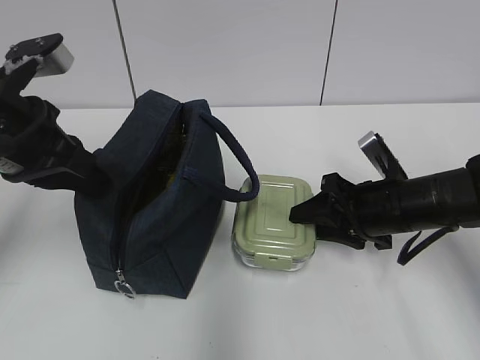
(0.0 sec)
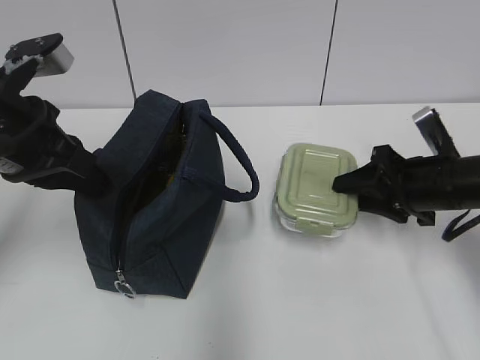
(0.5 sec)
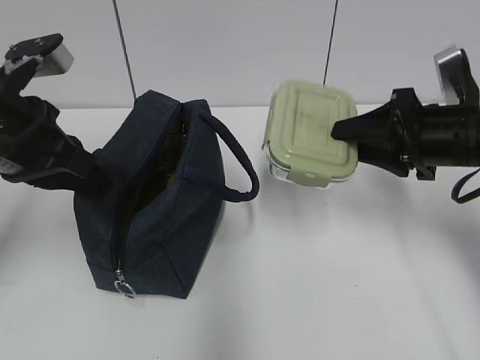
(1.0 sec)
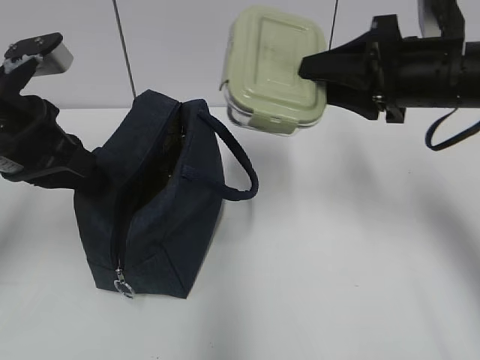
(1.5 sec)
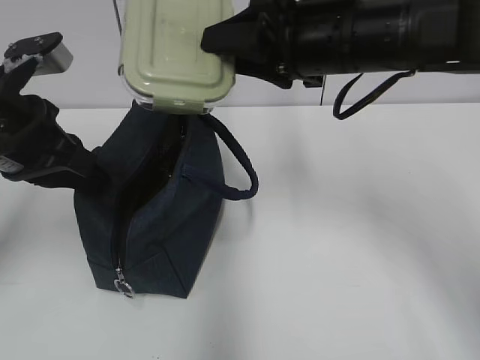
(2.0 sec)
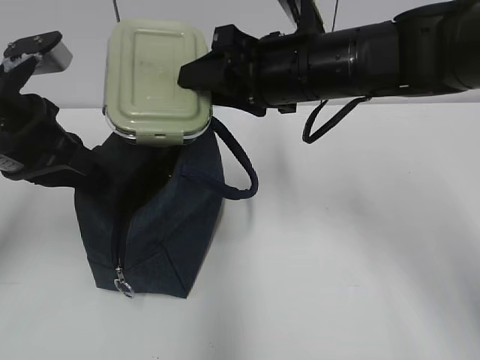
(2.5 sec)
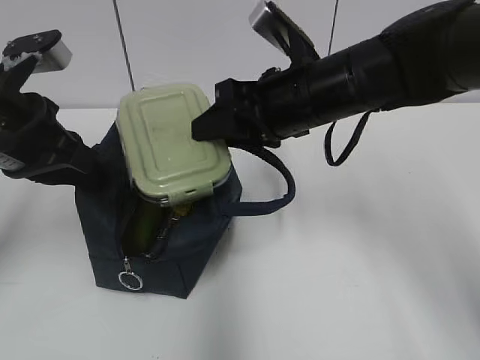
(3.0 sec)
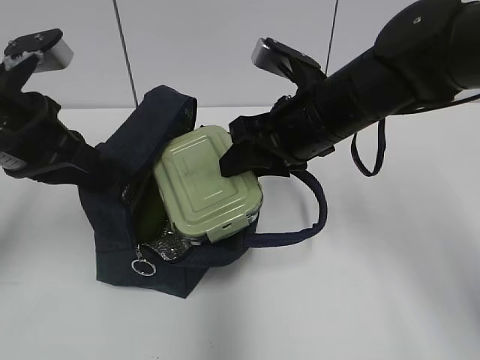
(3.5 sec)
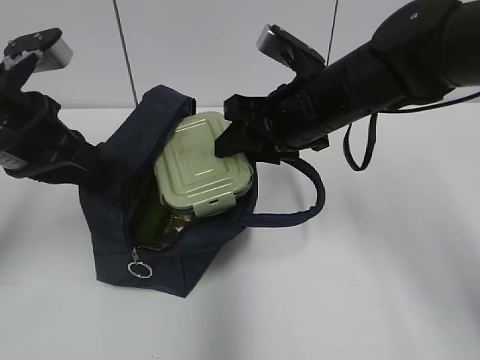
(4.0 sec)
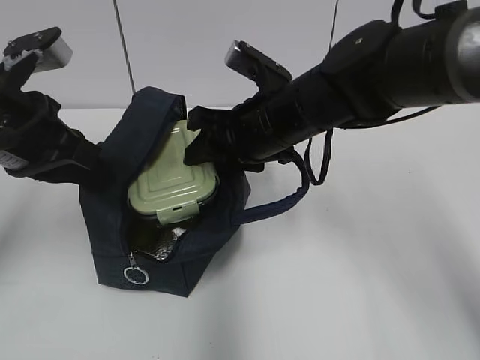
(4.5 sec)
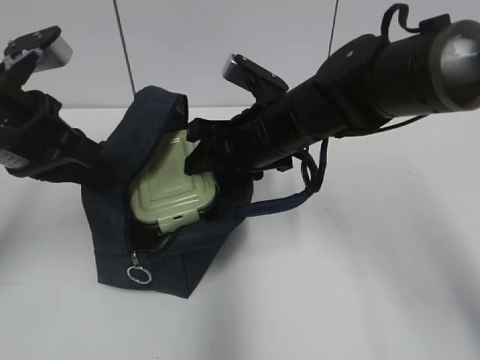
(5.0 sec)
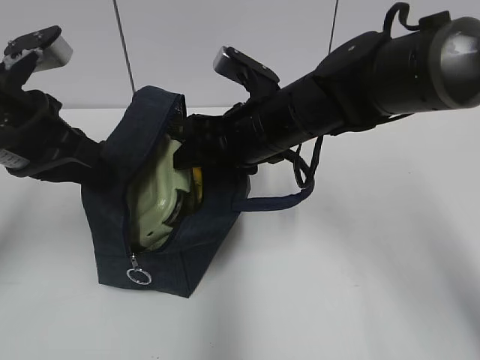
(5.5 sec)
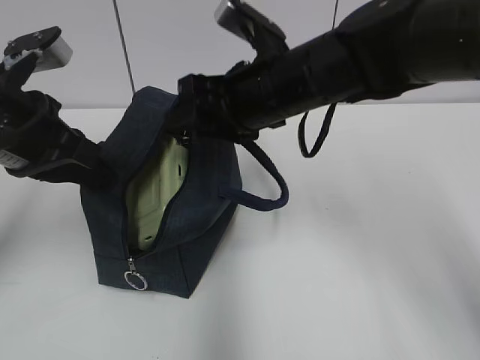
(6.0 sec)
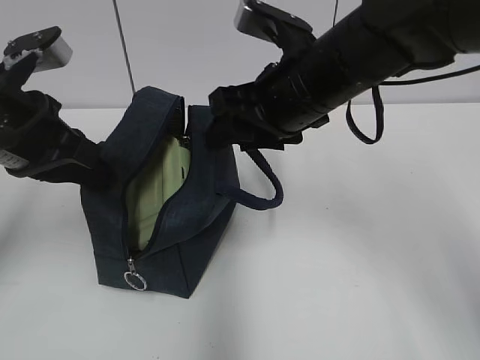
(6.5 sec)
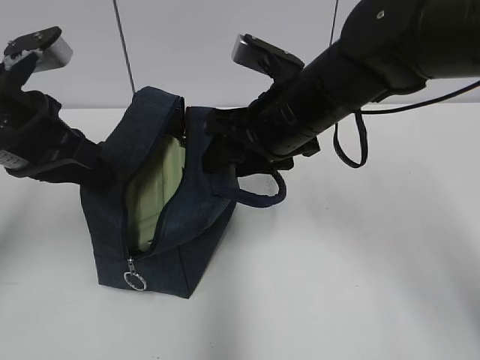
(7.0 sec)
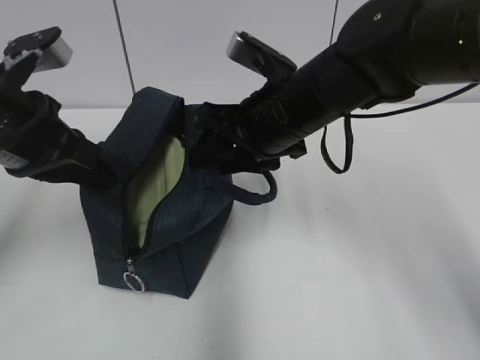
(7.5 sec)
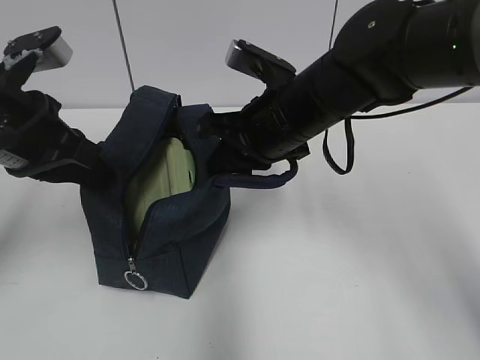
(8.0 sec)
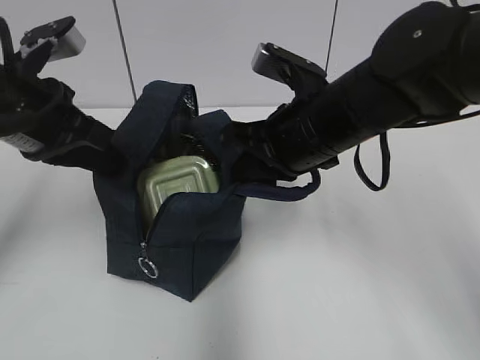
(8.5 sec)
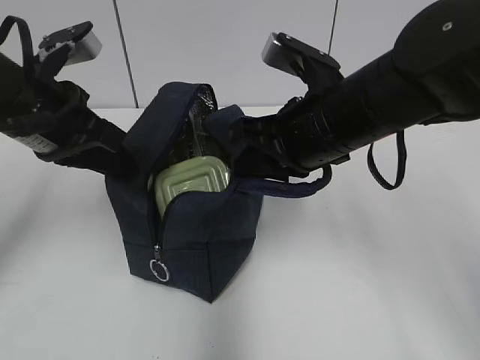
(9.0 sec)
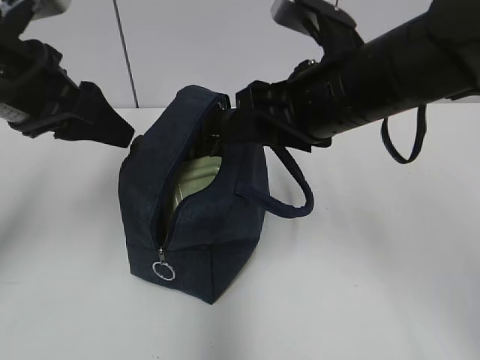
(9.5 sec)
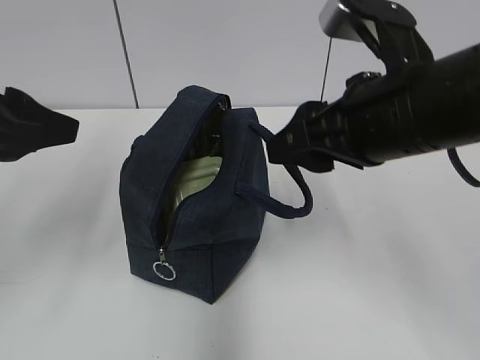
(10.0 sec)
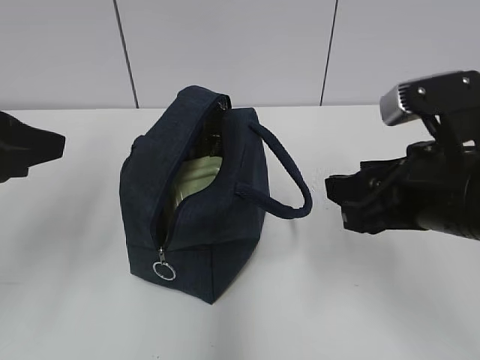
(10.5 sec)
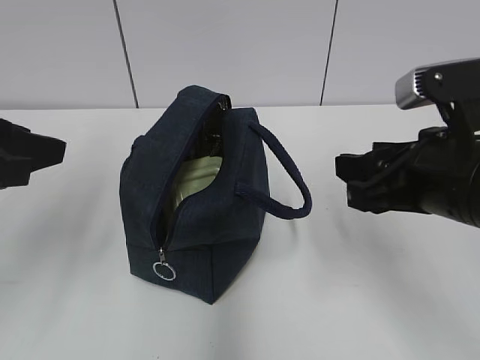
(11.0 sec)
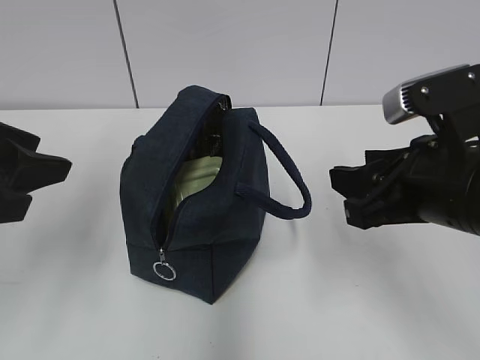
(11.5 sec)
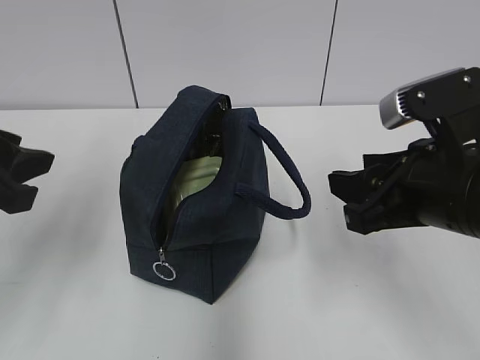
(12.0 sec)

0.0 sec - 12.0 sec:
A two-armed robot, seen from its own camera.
Step, 6.0 sec - 7.5 sec: Grab the lunch bag with your right hand.
Step, 8.0 sec - 9.0 sec: Move the lunch bag to the right.
0.0 sec - 2.0 sec: The right gripper goes roughly 20 cm upward and to the left.
2.0 sec - 4.0 sec: The right gripper heads downward, covering approximately 5 cm.
4.0 sec - 6.0 sec: The grippers make only small movements.
6.0 sec - 8.0 sec: The right gripper closes its fingers.
8.0 sec - 10.0 sec: The right gripper goes about 15 cm backward, to the right and upward, and opens its fingers, while the left gripper is displaced backward by approximately 5 cm, and opens up.
10.0 sec - 12.0 sec: The right gripper moves about 5 cm.

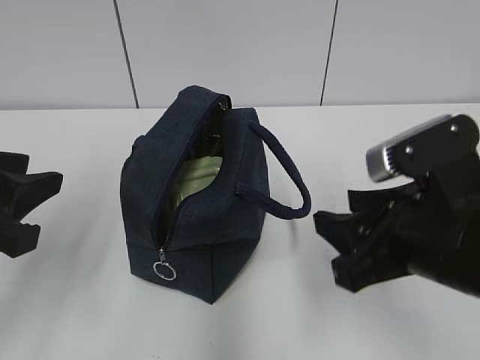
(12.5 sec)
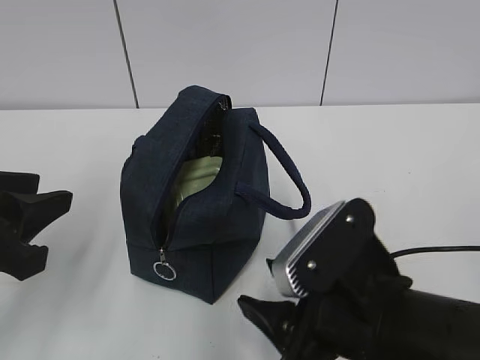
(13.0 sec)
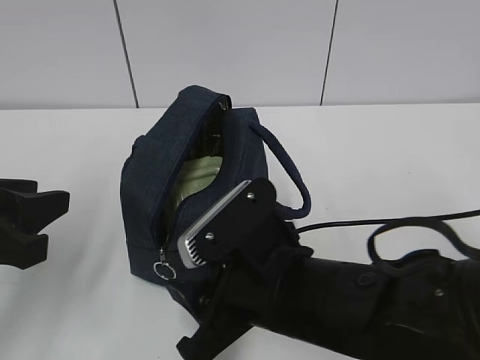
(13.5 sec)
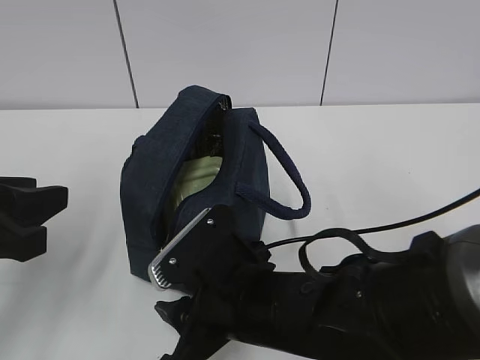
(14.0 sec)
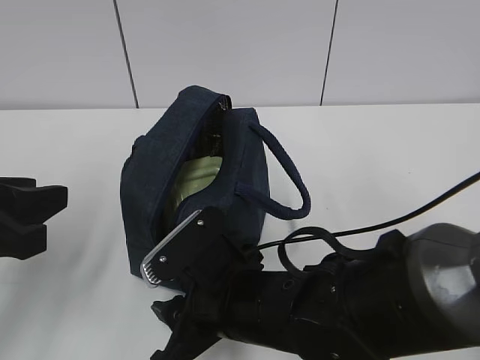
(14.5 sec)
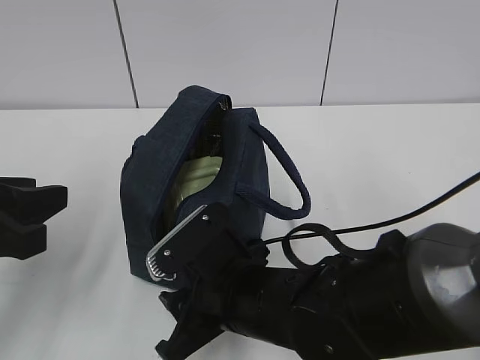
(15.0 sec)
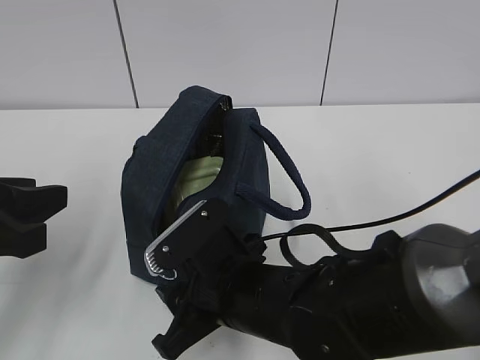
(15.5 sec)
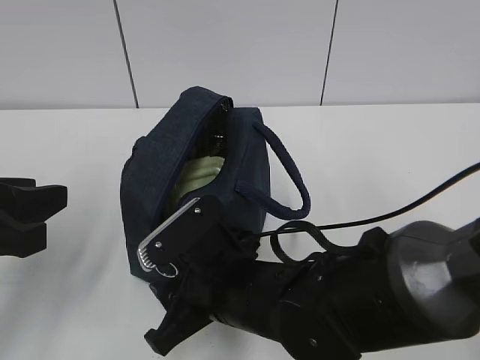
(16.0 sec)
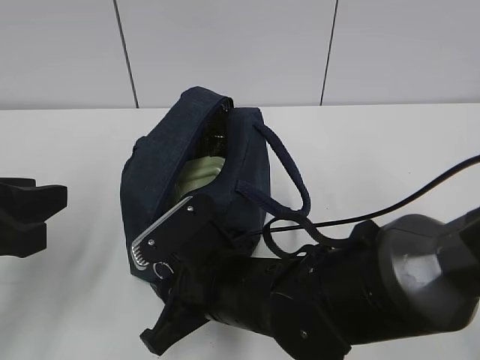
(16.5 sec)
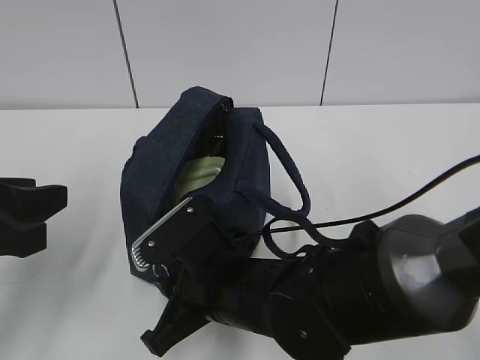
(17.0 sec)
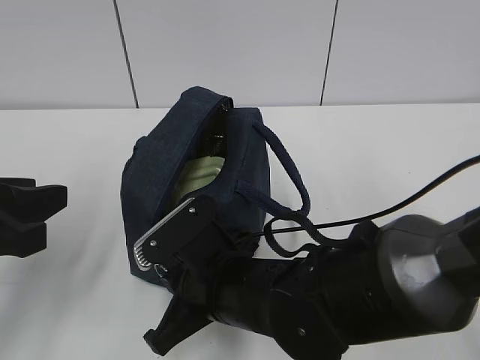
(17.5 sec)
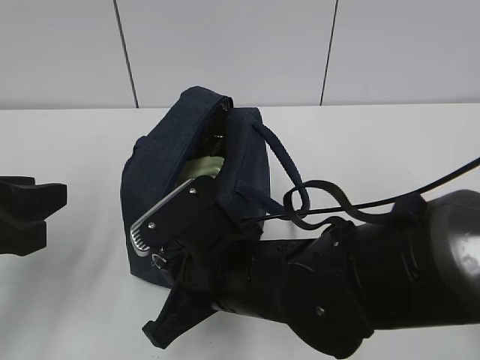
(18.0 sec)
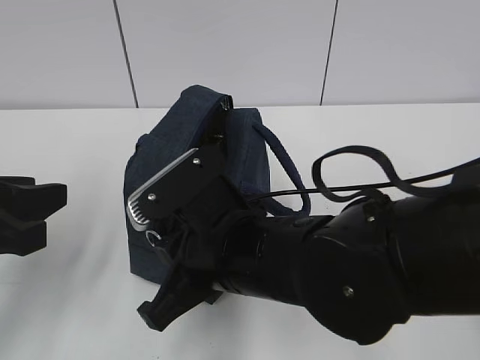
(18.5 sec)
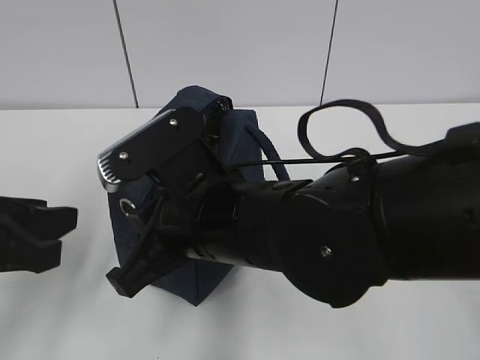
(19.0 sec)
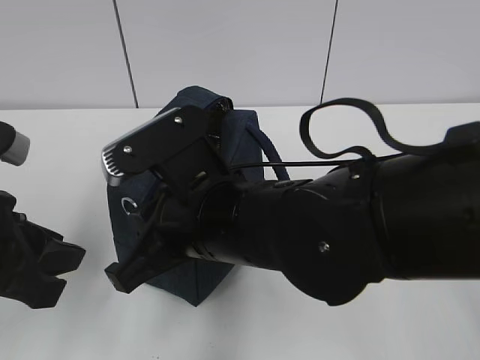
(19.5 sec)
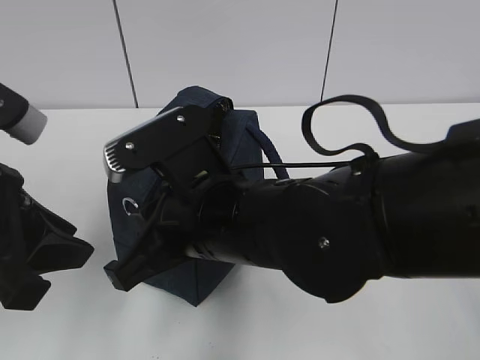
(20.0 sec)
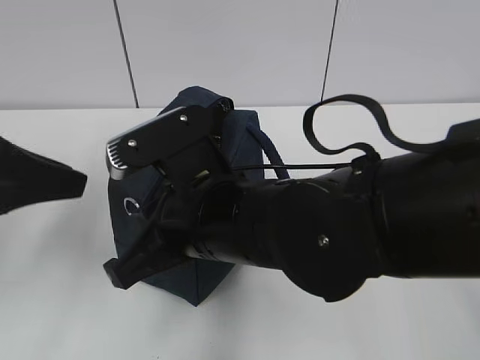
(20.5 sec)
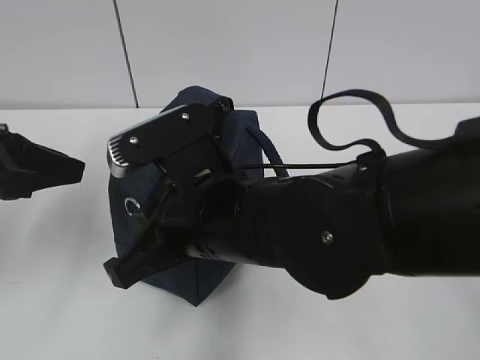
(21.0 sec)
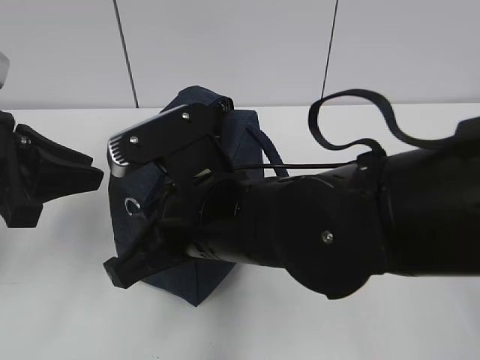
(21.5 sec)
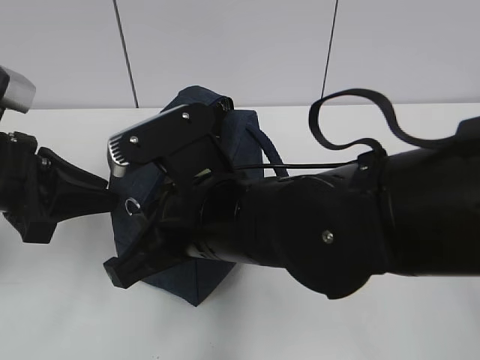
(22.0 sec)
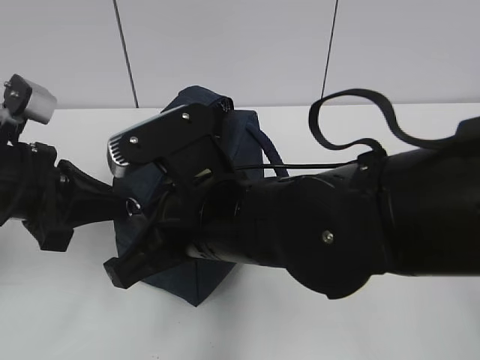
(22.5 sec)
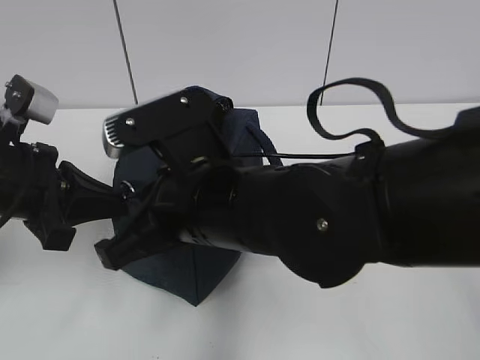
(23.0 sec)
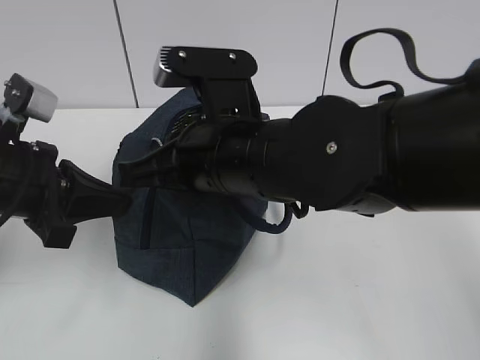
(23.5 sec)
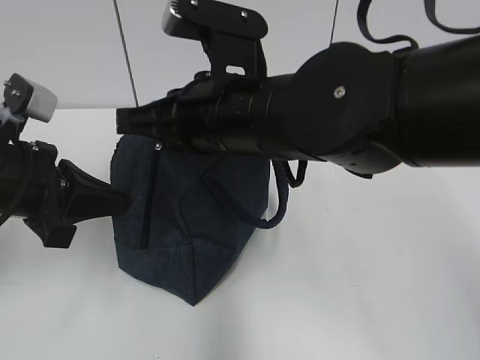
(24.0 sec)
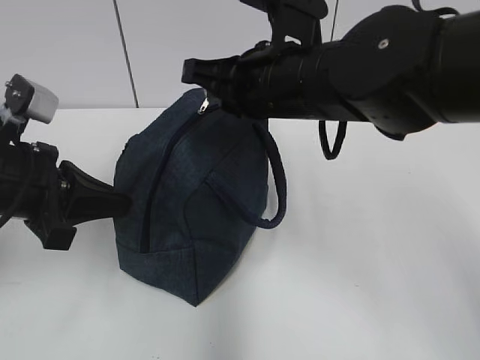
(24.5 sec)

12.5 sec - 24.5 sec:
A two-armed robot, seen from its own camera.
12.5 sec - 14.5 sec: The right gripper heads to the left and downward, covering about 15 cm.
14.5 sec - 16.5 sec: The grippers stay close to where they were, moving slightly.
16.5 sec - 18.5 sec: The right gripper moves upward, approximately 5 cm, and closes up.
18.5 sec - 20.5 sec: The left gripper changes place by approximately 5 cm.
20.5 sec - 22.5 sec: The left gripper goes some 5 cm downward, and closes up.
22.5 sec - 24.5 sec: The right gripper heads forward, to the right and upward, covering roughly 15 cm.

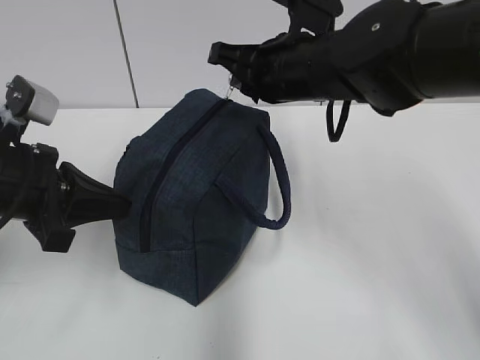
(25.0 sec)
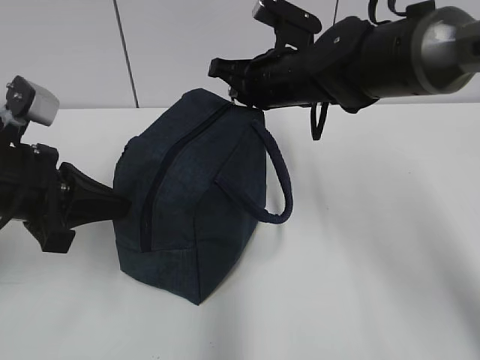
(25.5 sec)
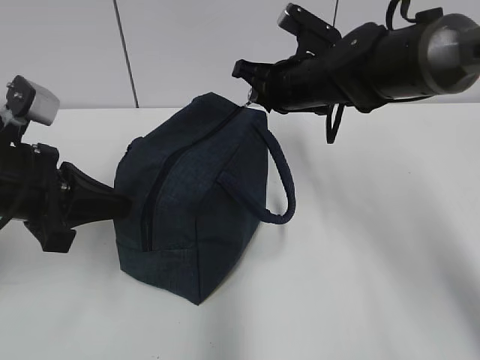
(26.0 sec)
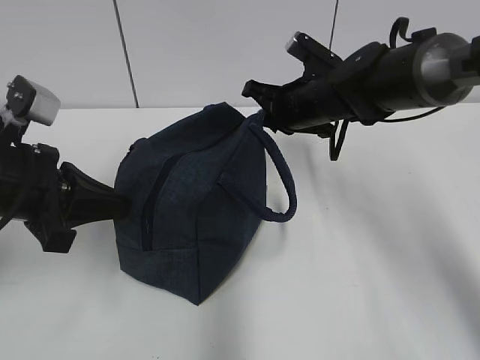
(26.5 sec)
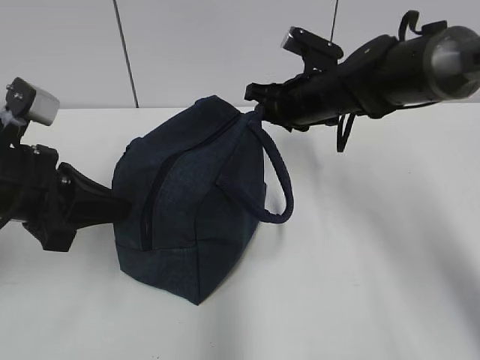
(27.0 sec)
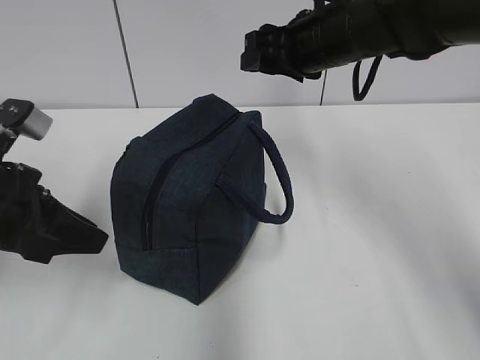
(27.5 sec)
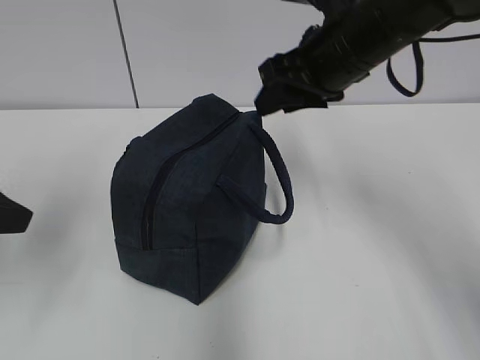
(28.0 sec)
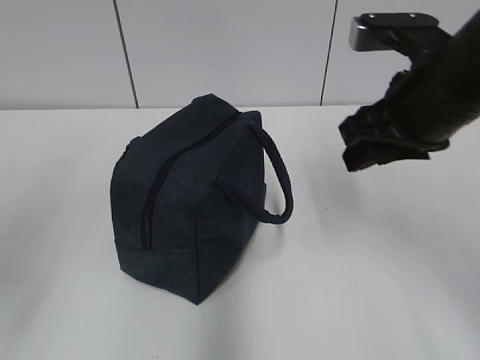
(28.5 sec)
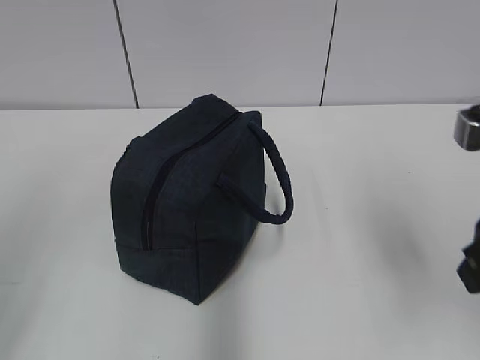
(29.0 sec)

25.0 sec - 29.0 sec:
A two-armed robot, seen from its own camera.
25.0 sec - 27.0 sec: The right gripper is displaced forward and downward by some 10 cm, and opens.
27.0 sec - 29.0 sec: The left gripper travels backward and upward by roughly 20 cm. The right gripper moves backward, roughly 25 cm.
